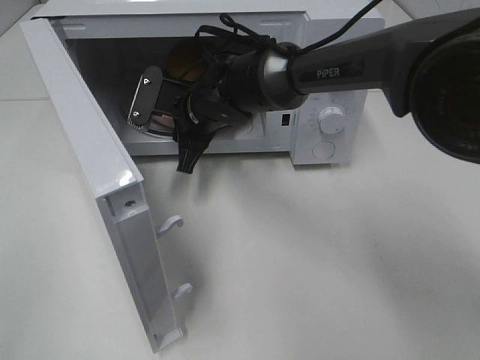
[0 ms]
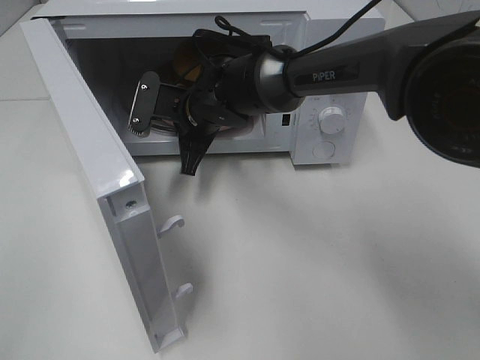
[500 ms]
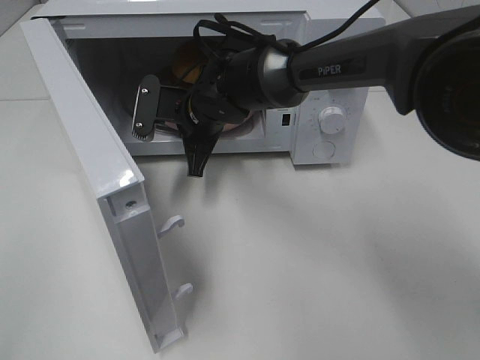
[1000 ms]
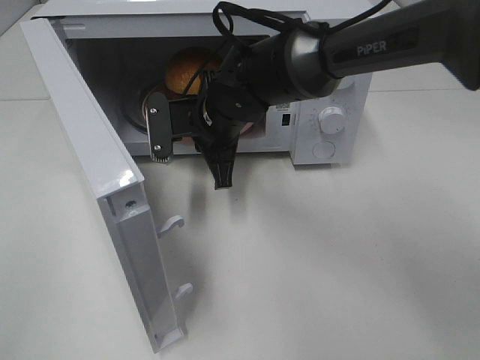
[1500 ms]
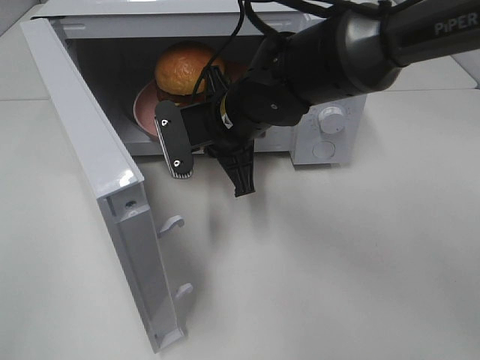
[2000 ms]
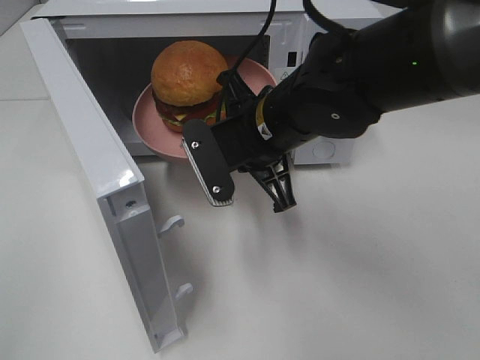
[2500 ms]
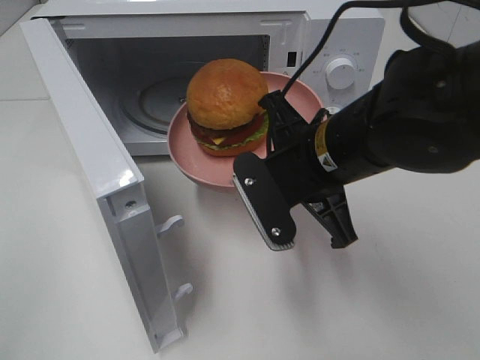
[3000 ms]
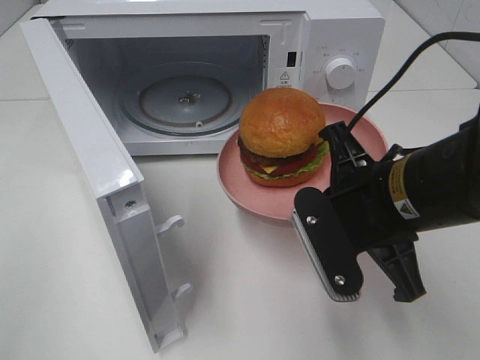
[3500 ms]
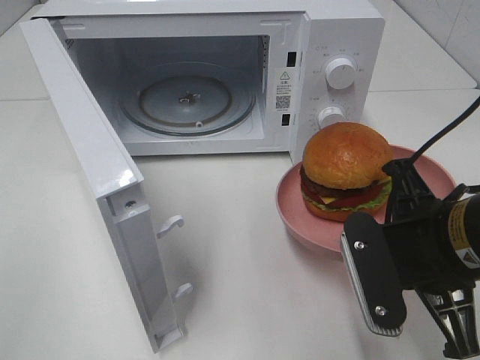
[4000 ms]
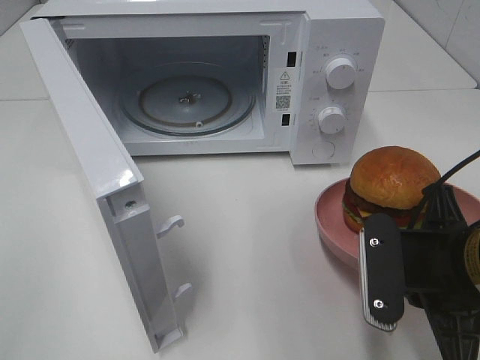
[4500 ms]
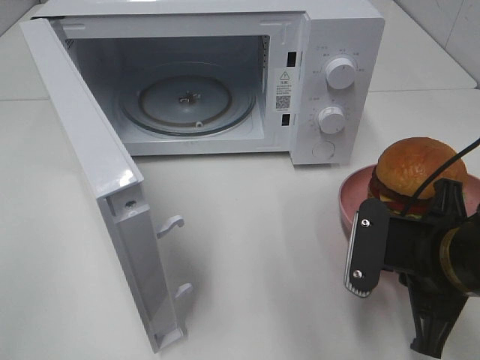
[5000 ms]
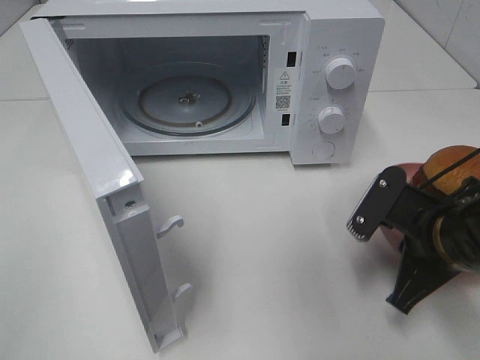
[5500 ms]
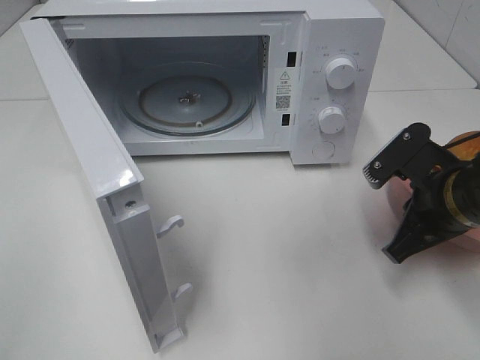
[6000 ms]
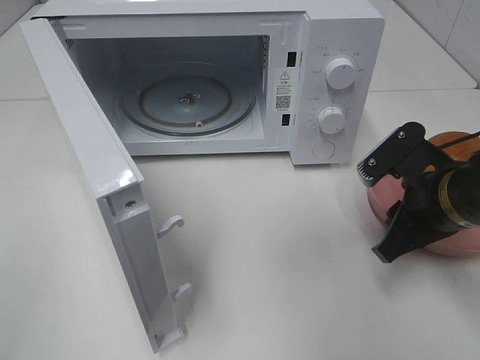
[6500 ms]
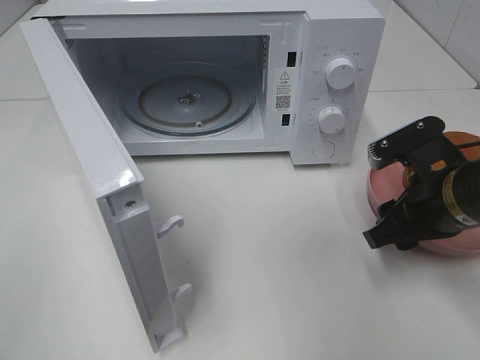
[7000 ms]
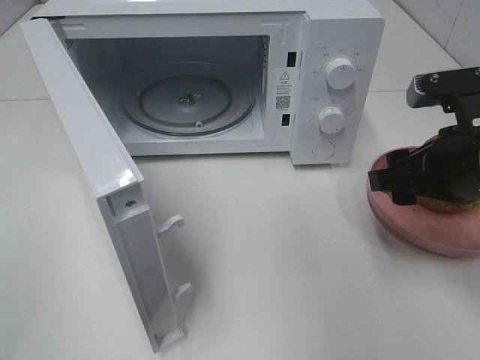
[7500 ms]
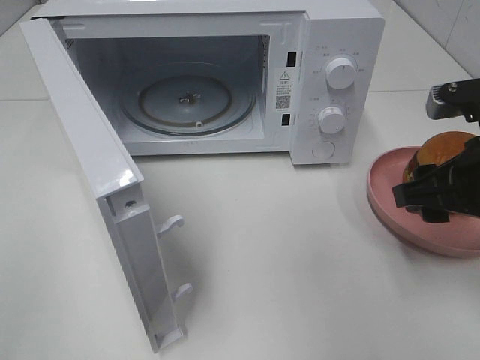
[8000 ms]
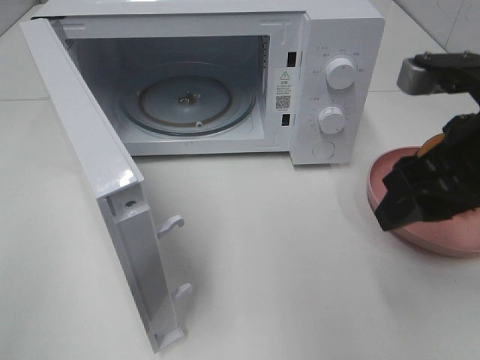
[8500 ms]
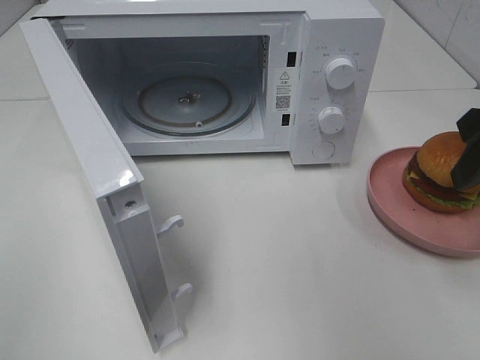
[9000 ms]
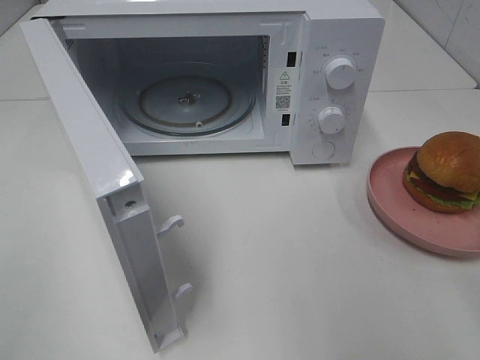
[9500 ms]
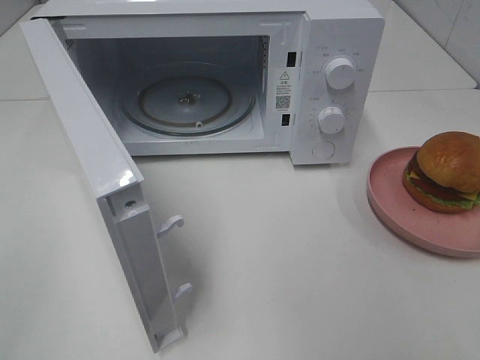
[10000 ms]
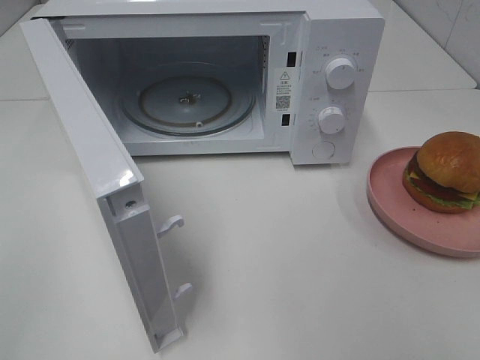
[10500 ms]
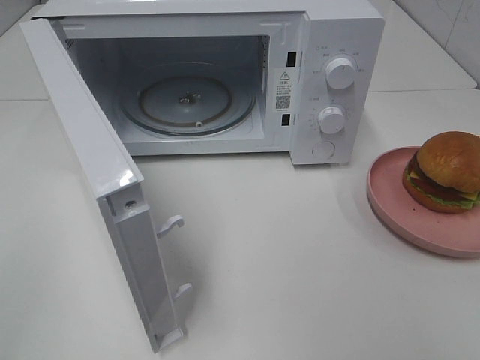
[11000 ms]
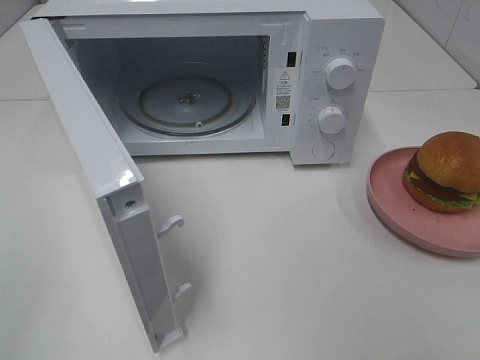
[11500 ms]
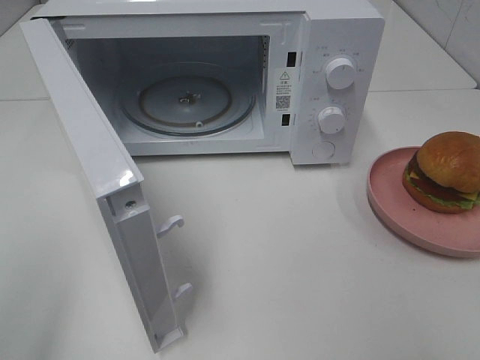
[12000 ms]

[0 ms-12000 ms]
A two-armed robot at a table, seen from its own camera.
Task of the whole recording: Heat the burger.
Step, 500 ms to 6000 ms: Right hand: place the plate on the table.
0 ms to 2000 ms: The right gripper heads backward, covering about 5 cm, and closes.
2000 ms to 4000 ms: The right gripper is displaced backward and to the right by about 25 cm.
4000 ms to 6000 ms: The right gripper moves forward and to the right, some 10 cm.
6000 ms to 8000 ms: The right gripper is displaced upward by approximately 10 cm, and opens its fingers.
8000 ms to 10000 ms: The right gripper moves backward, upward and to the right, approximately 15 cm.

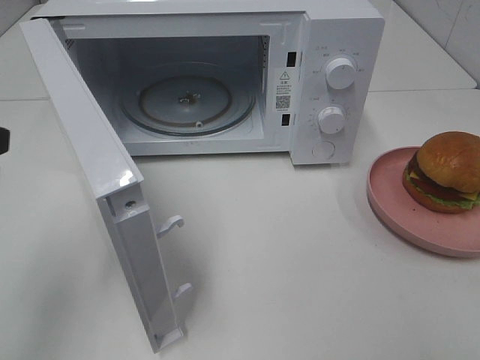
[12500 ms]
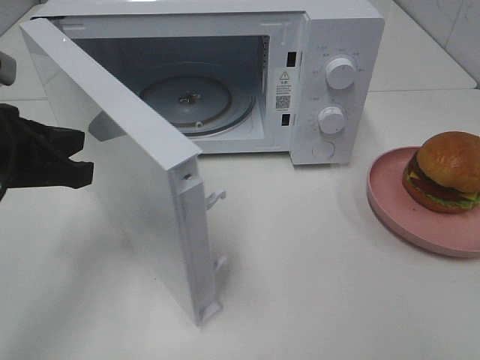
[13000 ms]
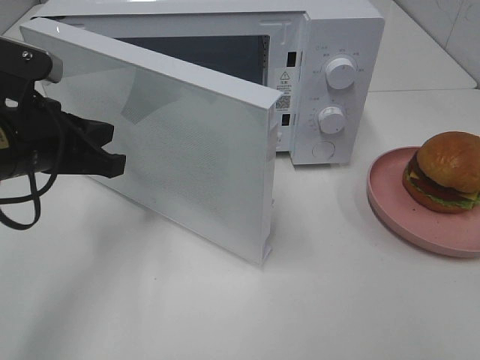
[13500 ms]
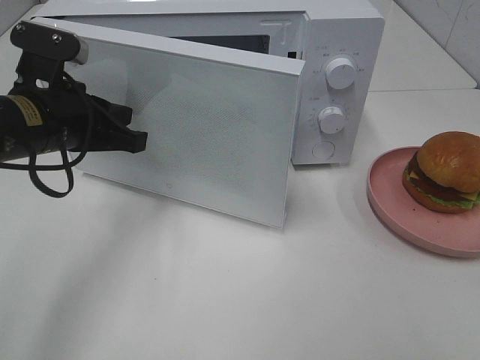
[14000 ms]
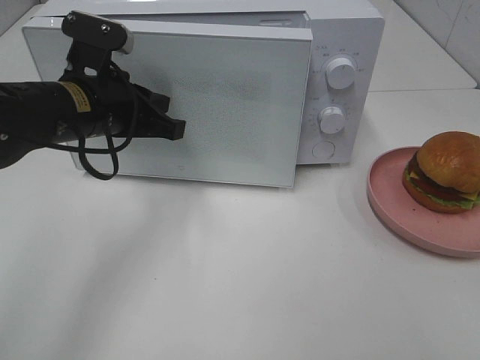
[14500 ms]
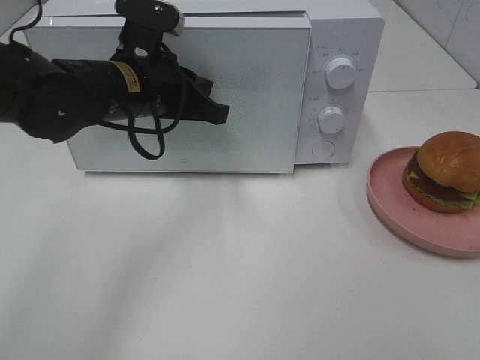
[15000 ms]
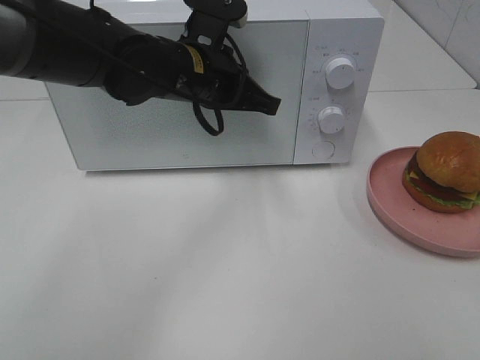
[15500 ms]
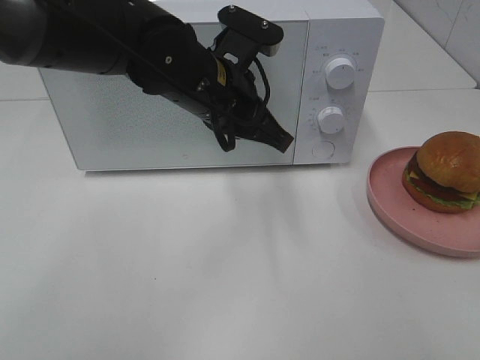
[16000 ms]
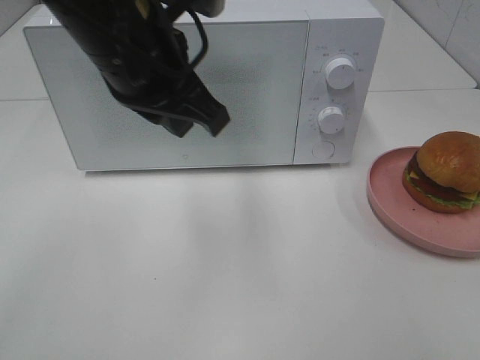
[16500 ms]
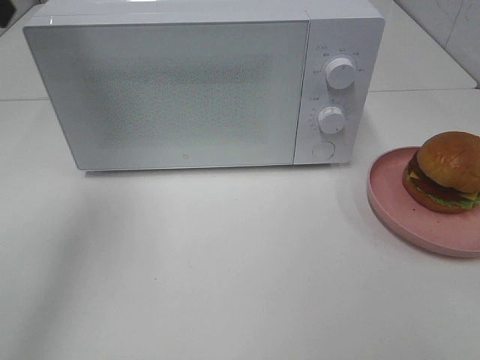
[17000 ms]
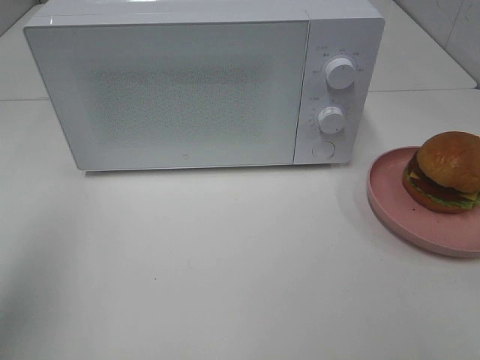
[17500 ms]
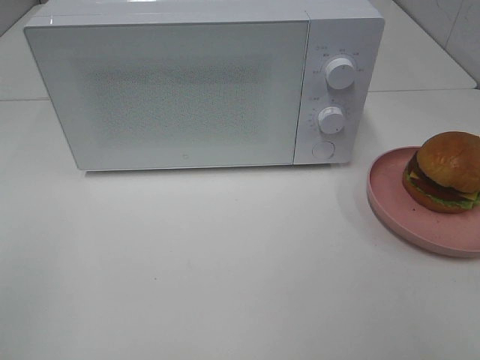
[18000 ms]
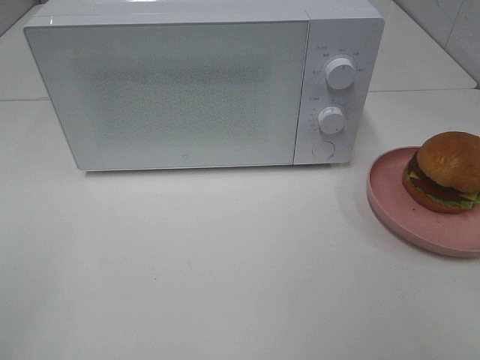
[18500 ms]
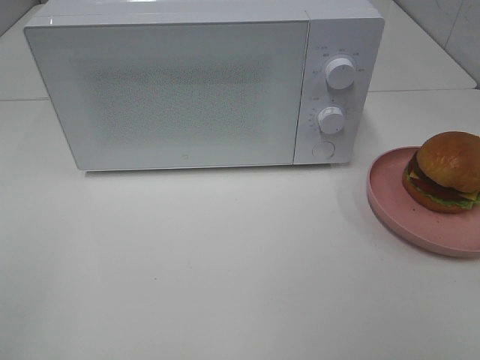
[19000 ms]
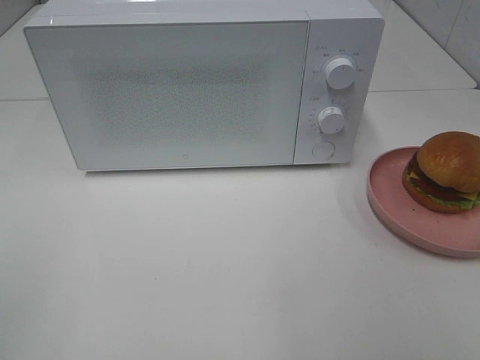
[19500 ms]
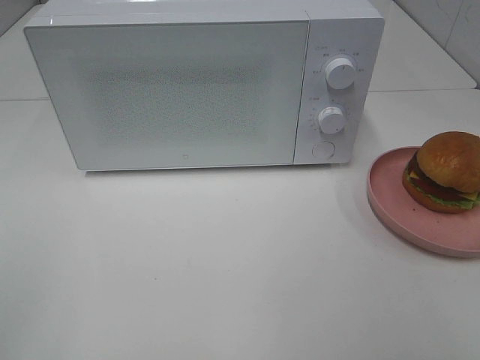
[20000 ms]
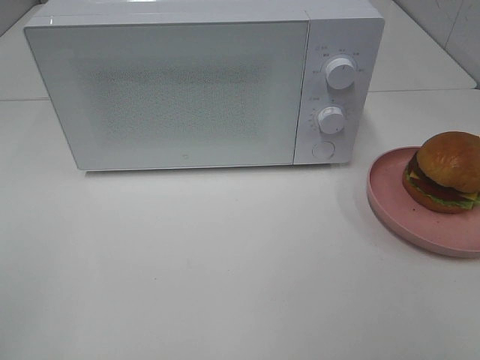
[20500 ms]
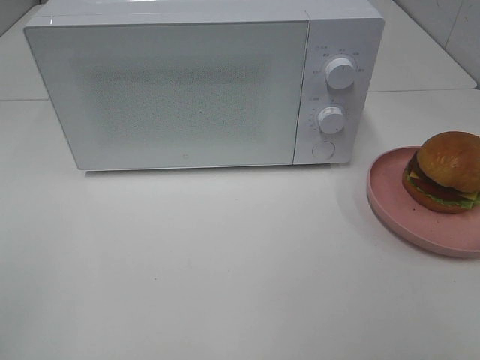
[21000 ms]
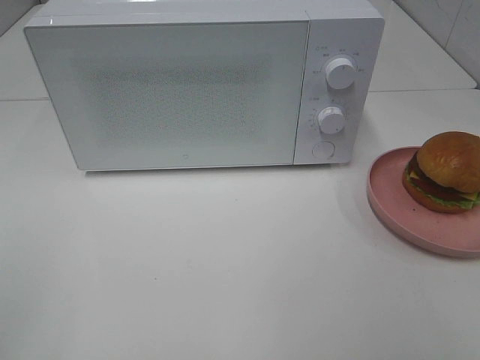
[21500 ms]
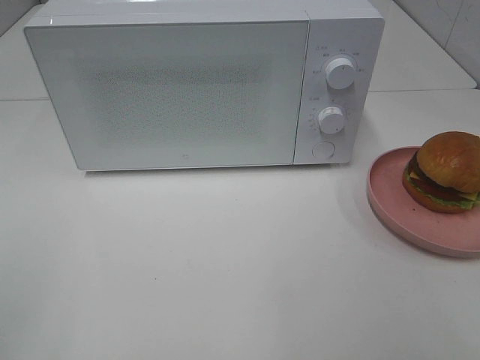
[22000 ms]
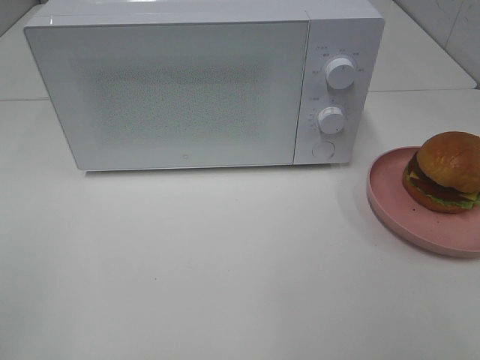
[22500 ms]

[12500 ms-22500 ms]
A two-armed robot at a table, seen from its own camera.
Task of the whole recording: Heat the burger.
Step, 12500 ms to 15500 ms: Left hand: close the microwave door.
12500 ms to 14500 ms: The left gripper travels forward, to the right and downward by some 20 cm.
14500 ms to 16500 ms: The left gripper is displaced upward and to the right by approximately 15 cm.
16500 ms to 18500 ms: The left gripper moves backward and to the left, some 35 cm.
20500 ms to 22500 ms: Both grippers stay put.

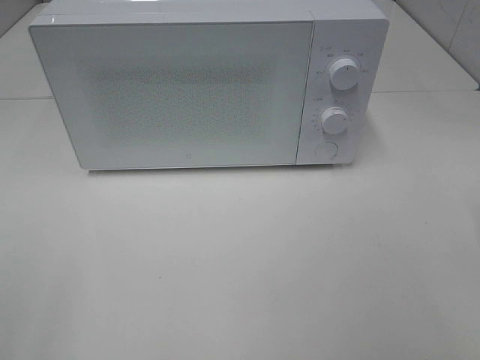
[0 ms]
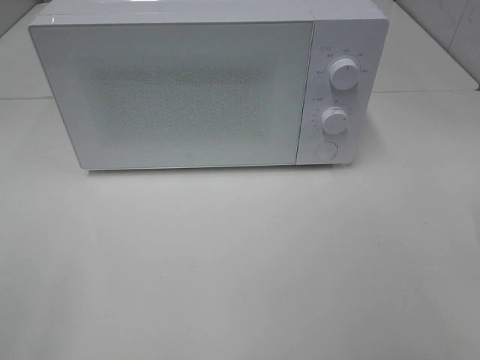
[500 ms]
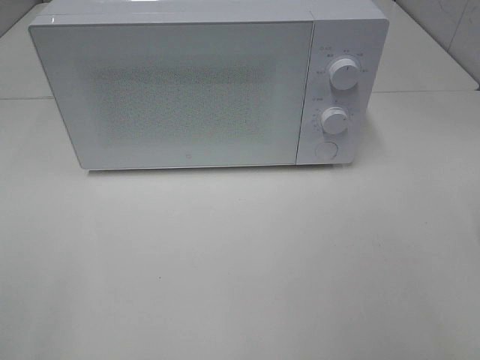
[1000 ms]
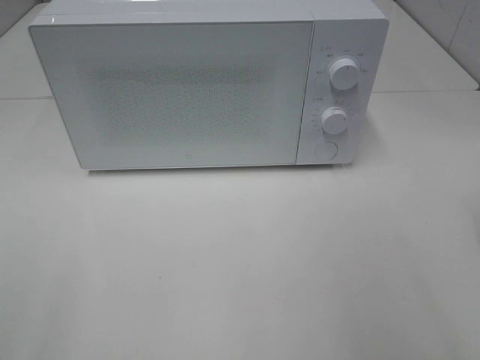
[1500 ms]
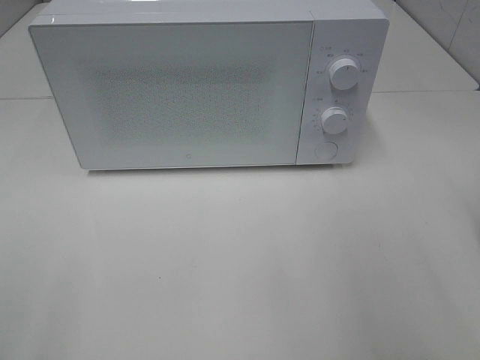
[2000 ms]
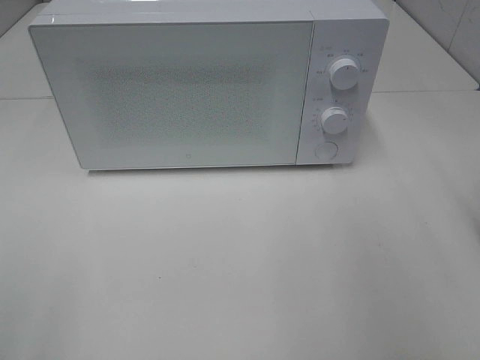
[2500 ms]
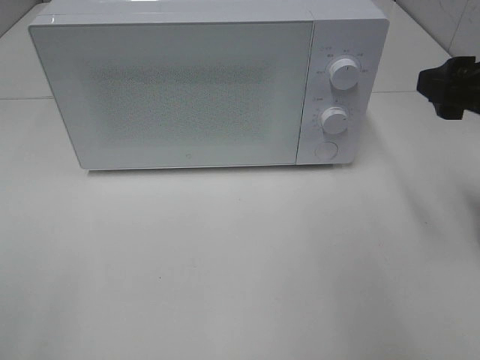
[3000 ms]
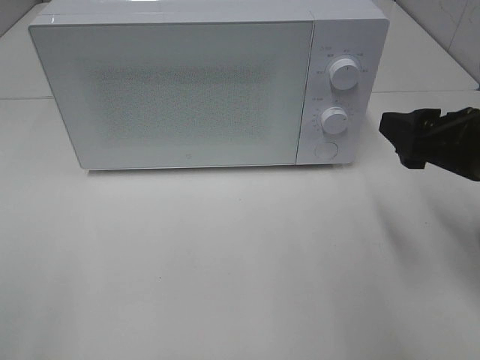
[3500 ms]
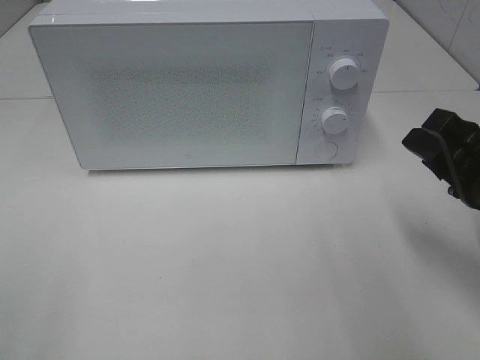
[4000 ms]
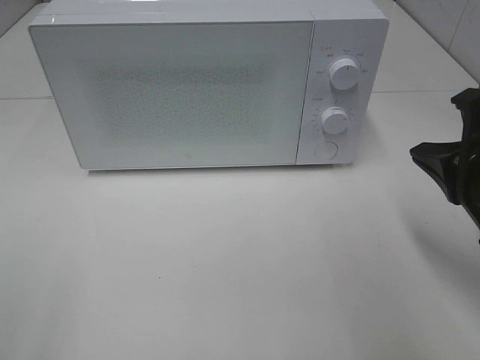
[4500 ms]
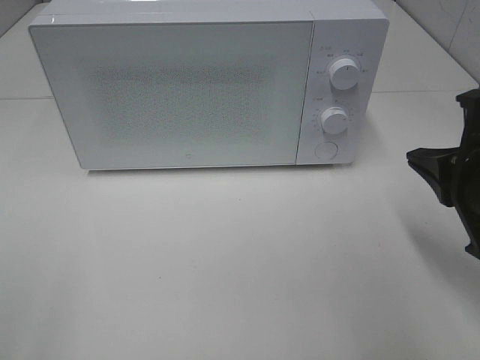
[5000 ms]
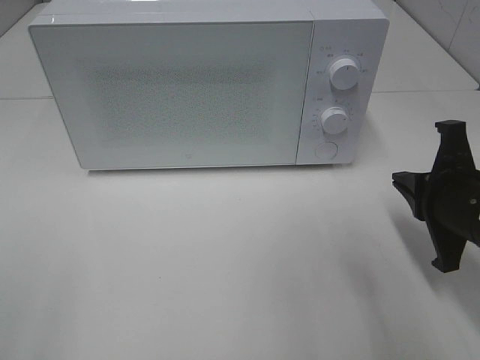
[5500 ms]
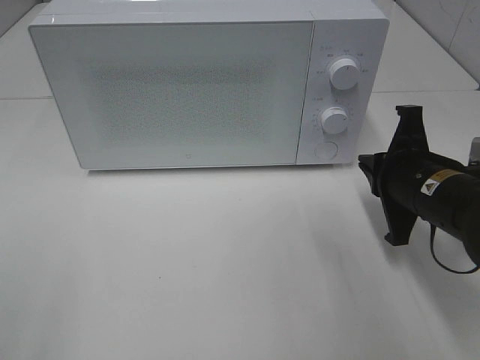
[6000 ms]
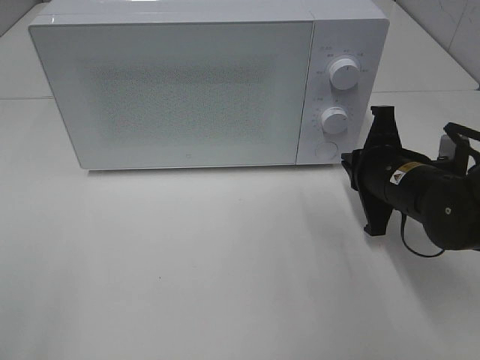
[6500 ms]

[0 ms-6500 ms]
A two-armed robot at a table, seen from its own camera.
Task of the whole recording: Heat the burger.
2000 ms to 4500 ms: The right gripper travels downward and to the left by approximately 10 cm, and closes its fingers.
4500 ms to 6500 ms: The right gripper travels forward and downward by approximately 15 cm.
